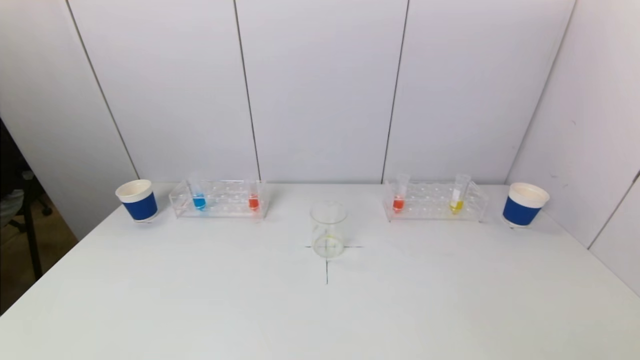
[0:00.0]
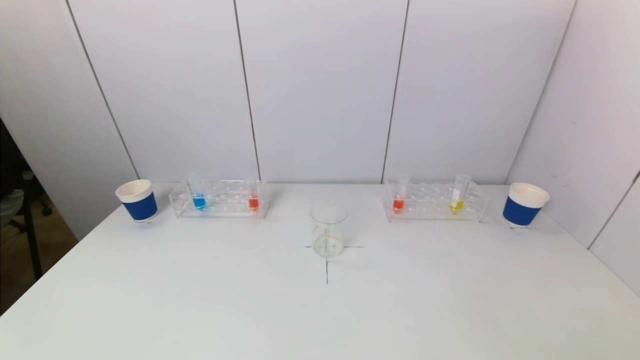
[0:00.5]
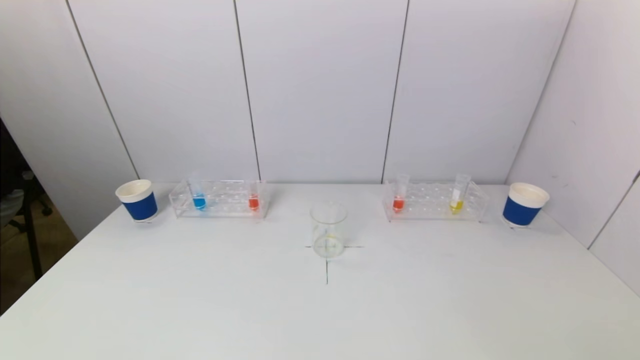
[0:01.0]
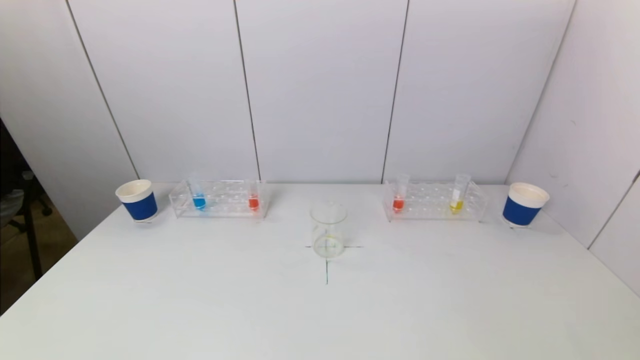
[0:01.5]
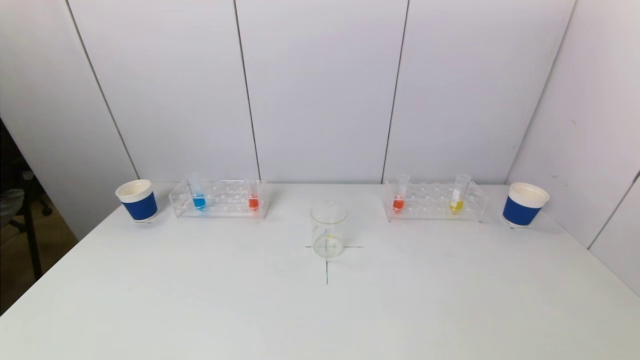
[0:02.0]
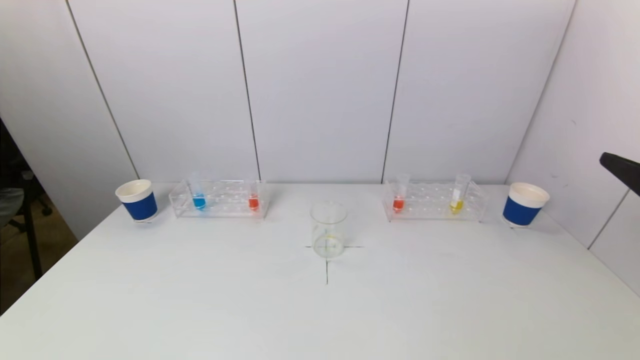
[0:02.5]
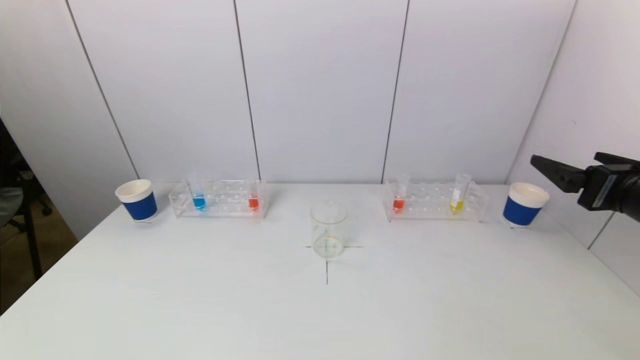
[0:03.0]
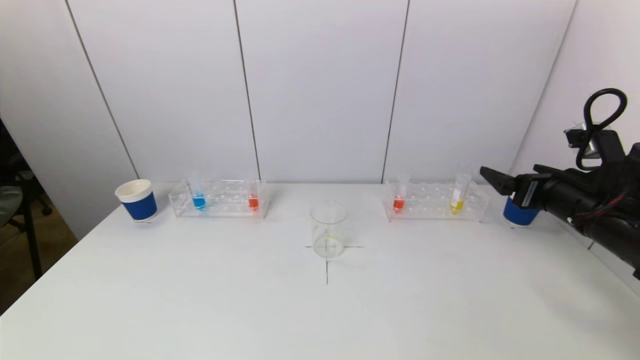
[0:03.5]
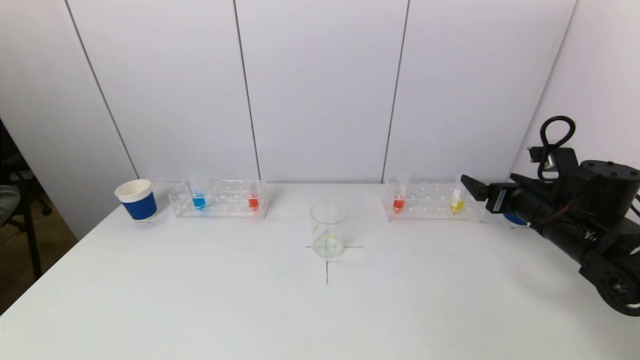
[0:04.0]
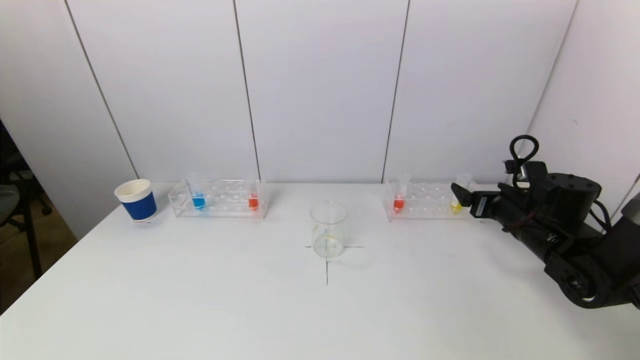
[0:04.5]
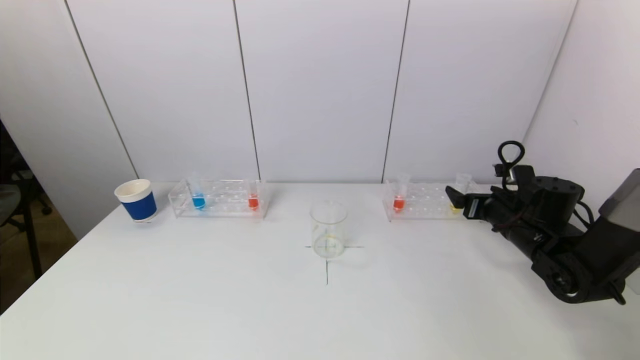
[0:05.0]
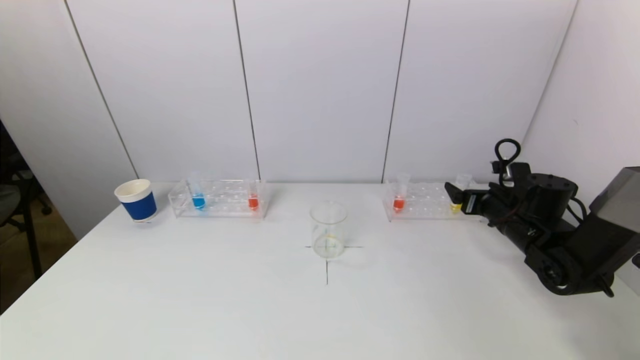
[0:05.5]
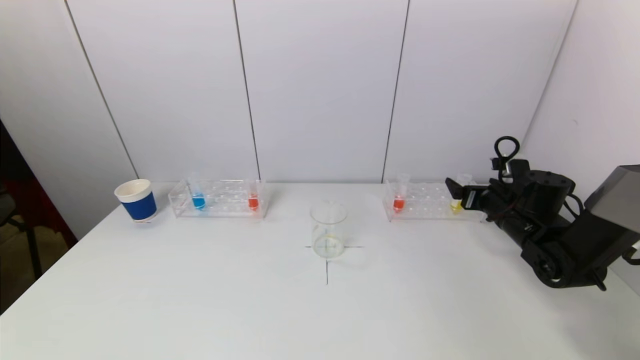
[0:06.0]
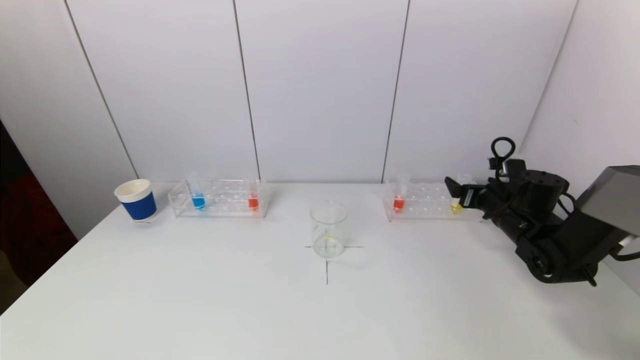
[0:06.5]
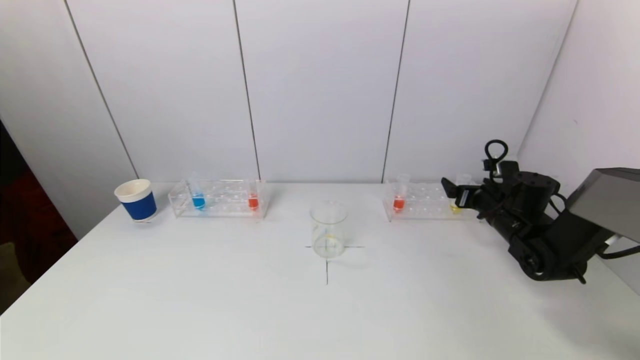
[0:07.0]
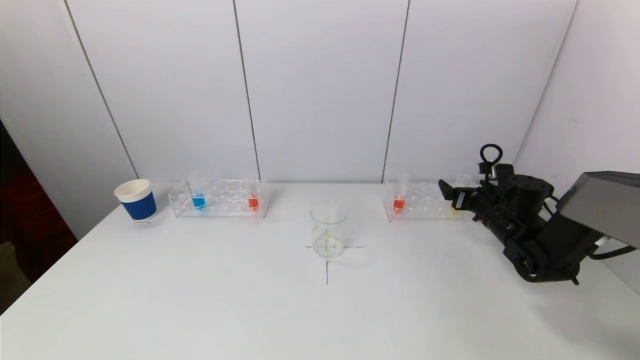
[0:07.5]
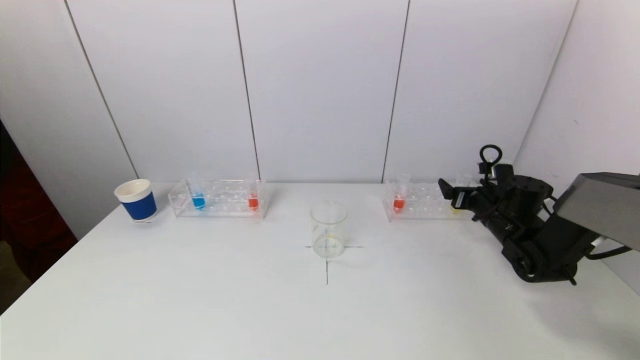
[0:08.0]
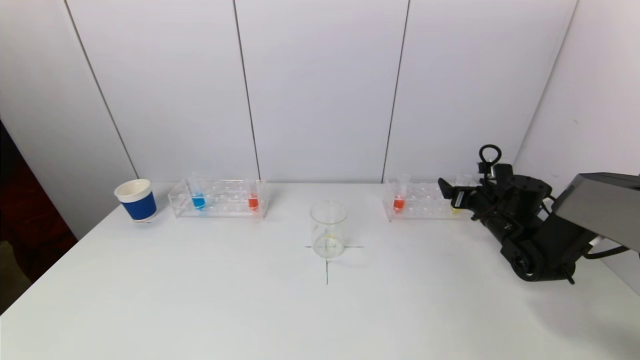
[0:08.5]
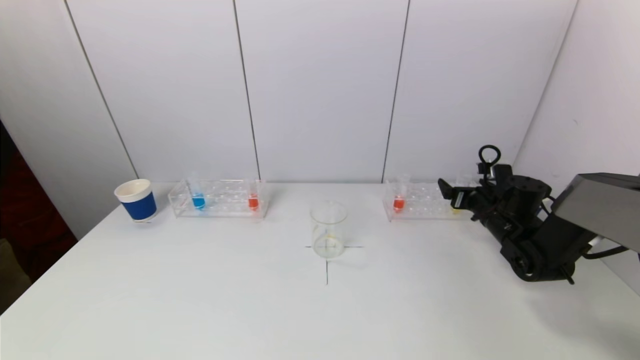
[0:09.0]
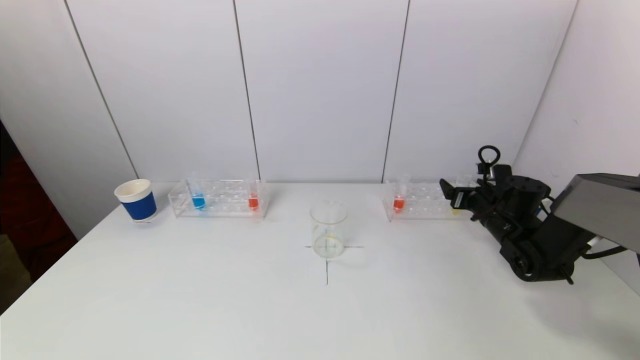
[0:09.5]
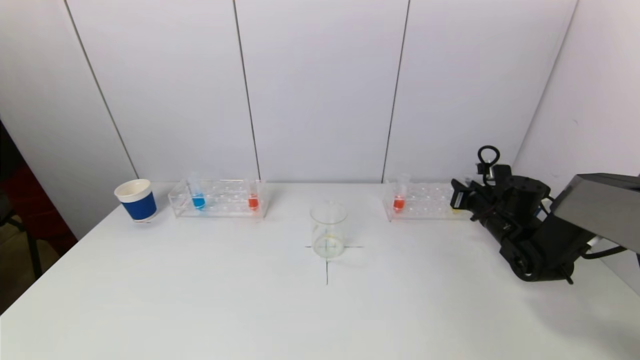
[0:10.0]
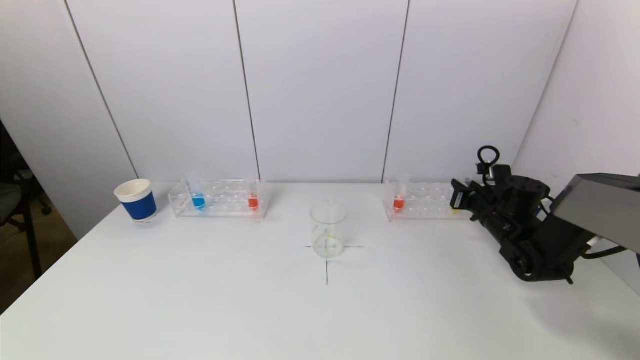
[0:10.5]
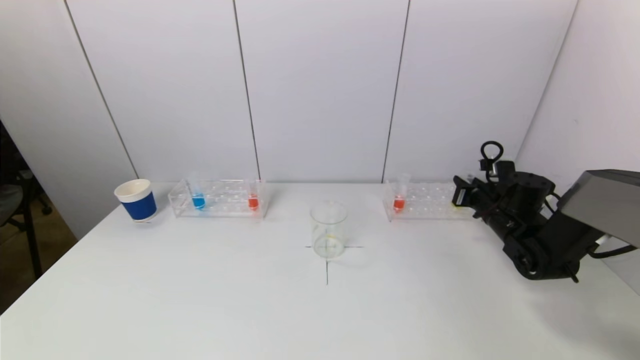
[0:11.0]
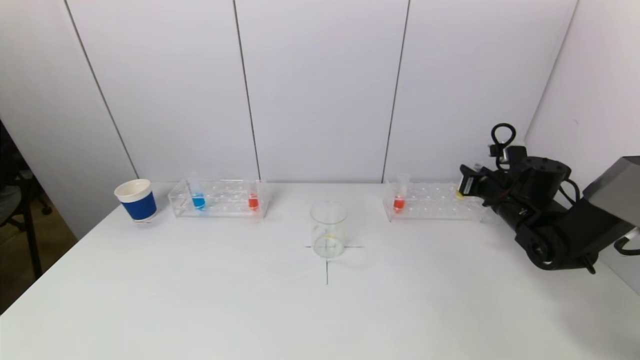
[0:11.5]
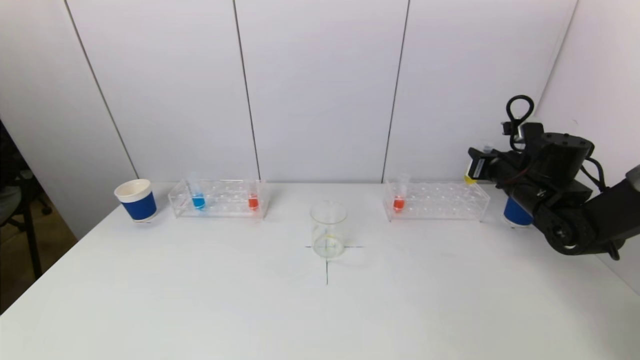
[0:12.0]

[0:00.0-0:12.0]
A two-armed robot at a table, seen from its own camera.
Task of the whole recording: pick up a test tube with pigment on left test tube rack and a test tube with pigment on right test tube rack by grippers and pour them into the beaker.
Step, 0:00.0 to 0:10.0: Grasp the yellow reagent with the right gripper.
0:02.0 to 0:04.0: The right gripper heads forward and downward, covering approximately 30 cm.
0:04.0 to 0:06.0: The right gripper heads forward and downward, covering roughly 10 cm.
0:06.0 to 0:08.0: The grippers make only small movements.
0:08.0 to 0:10.0: The right gripper closes its fingers.
0:10.0 to 0:12.0: The right gripper is displaced upward by some 10 cm.

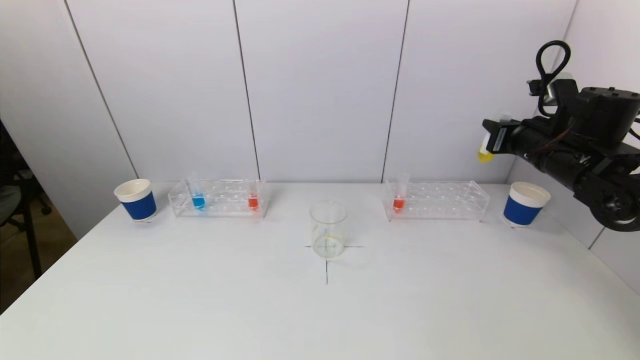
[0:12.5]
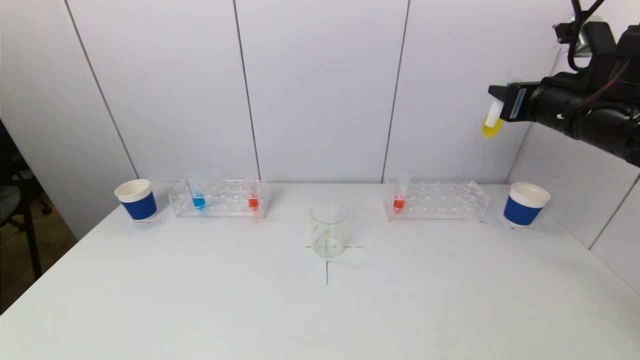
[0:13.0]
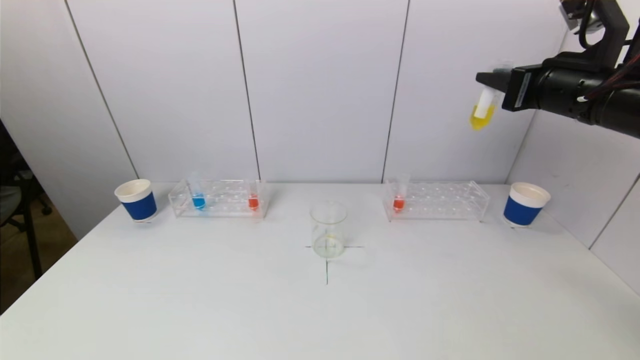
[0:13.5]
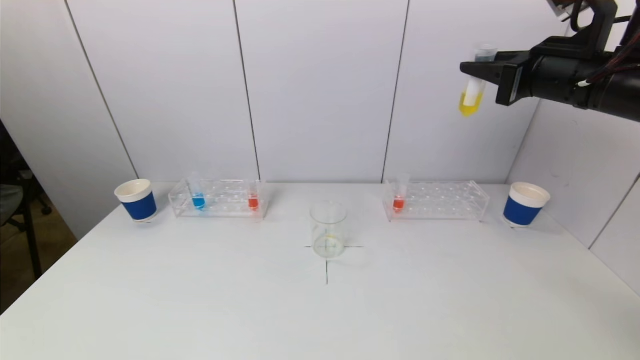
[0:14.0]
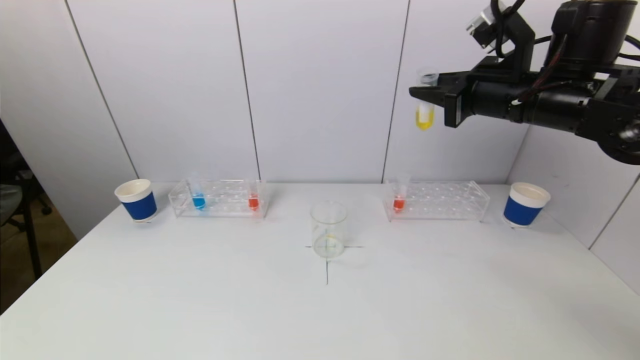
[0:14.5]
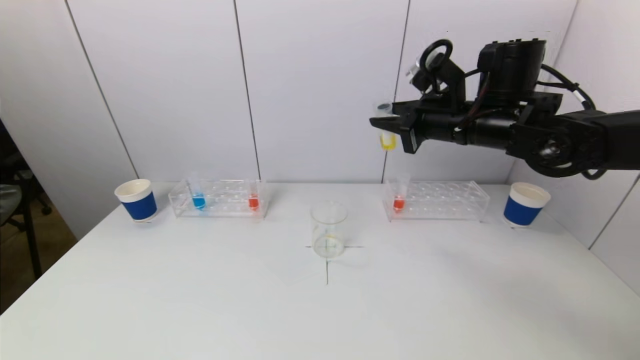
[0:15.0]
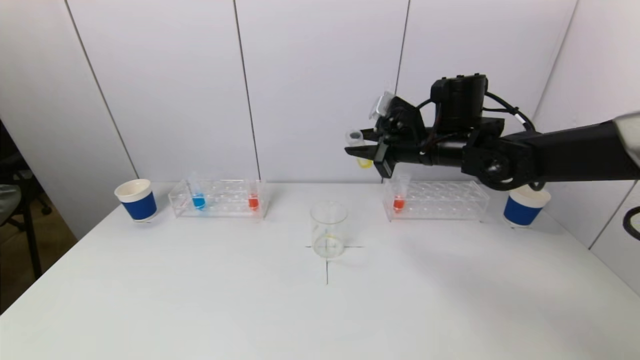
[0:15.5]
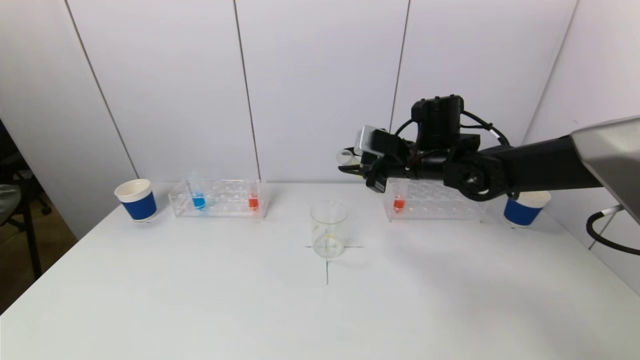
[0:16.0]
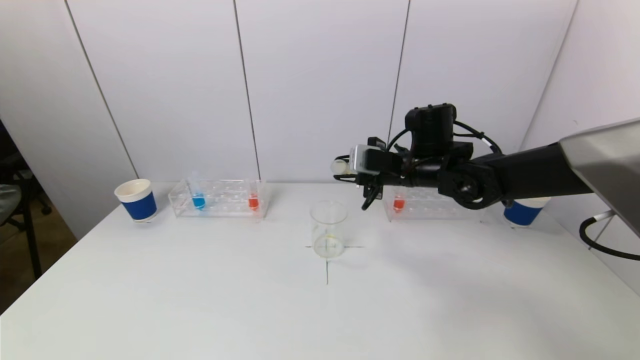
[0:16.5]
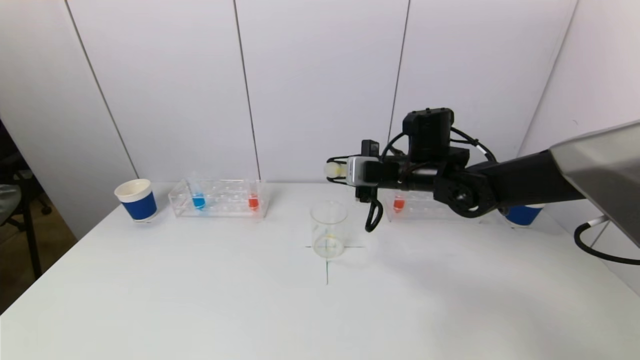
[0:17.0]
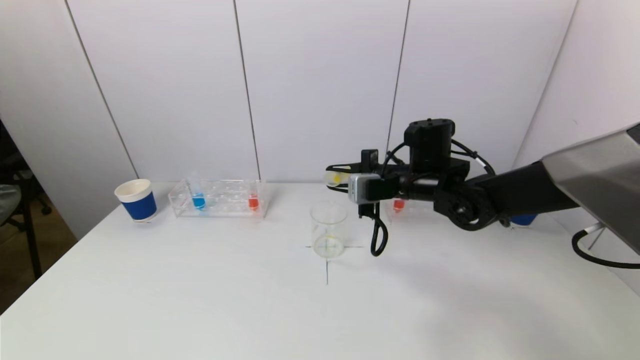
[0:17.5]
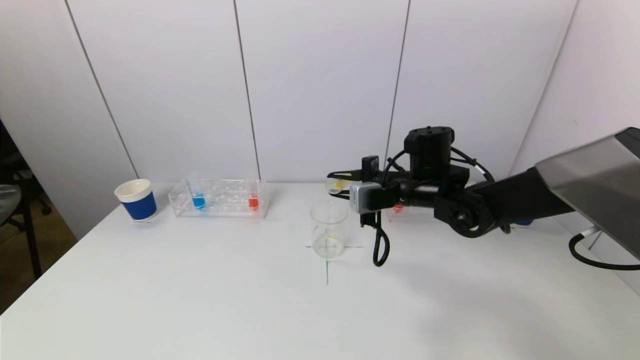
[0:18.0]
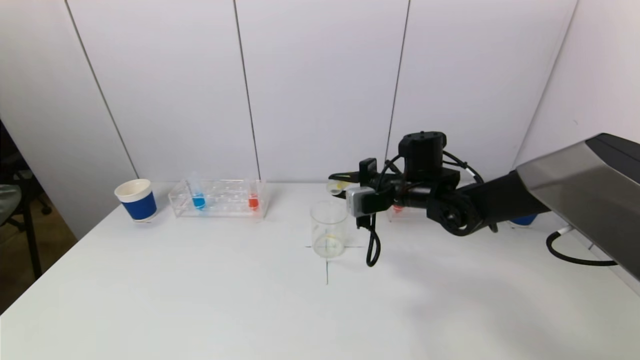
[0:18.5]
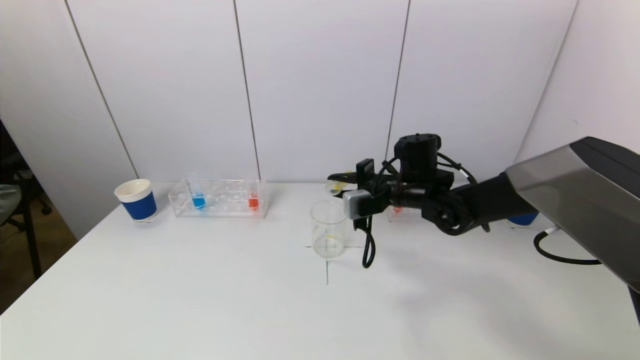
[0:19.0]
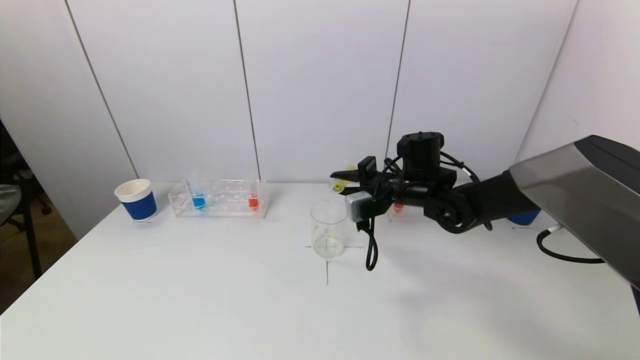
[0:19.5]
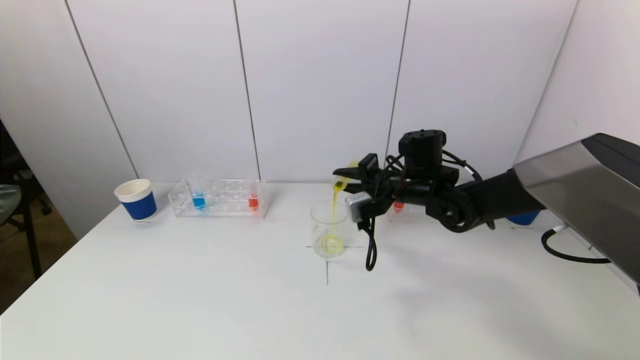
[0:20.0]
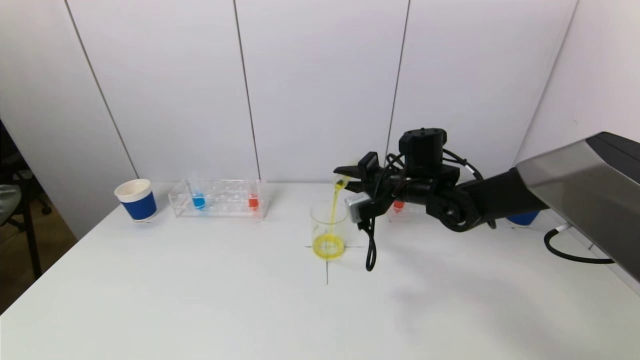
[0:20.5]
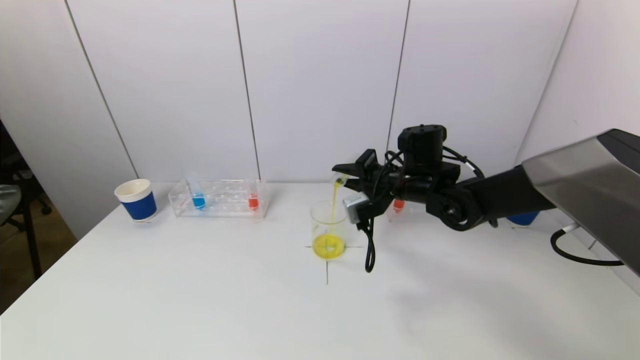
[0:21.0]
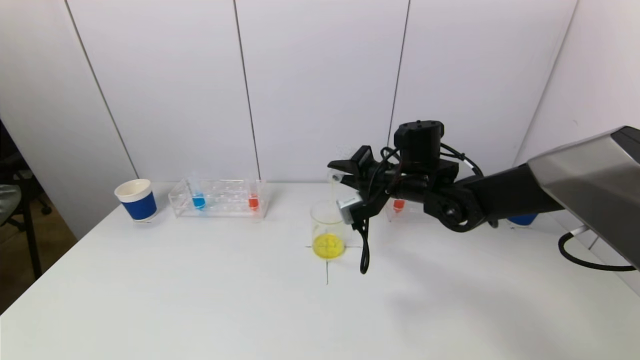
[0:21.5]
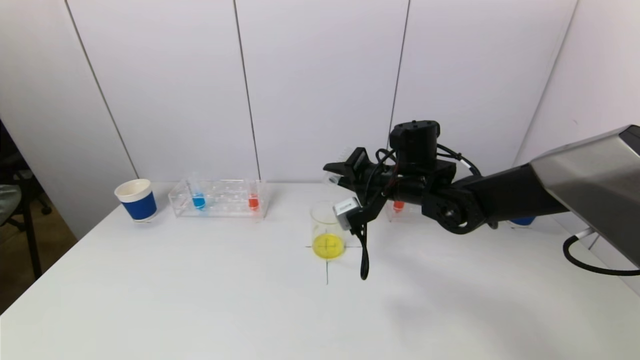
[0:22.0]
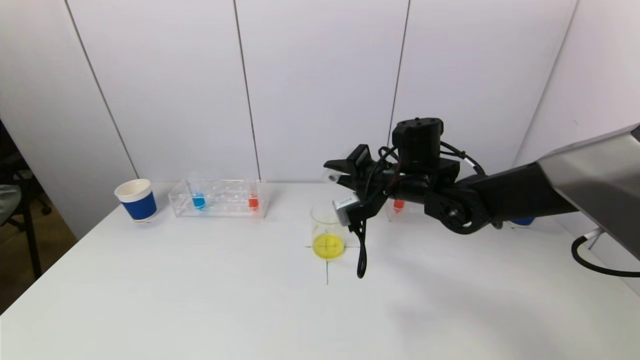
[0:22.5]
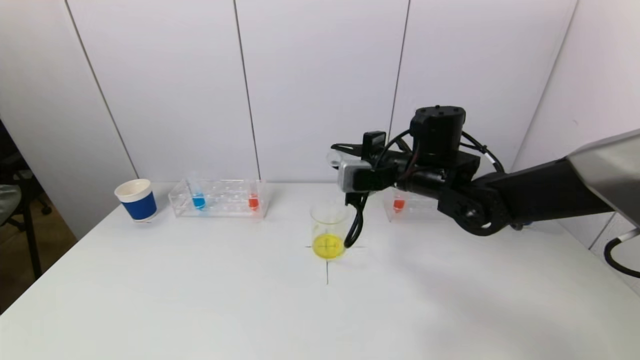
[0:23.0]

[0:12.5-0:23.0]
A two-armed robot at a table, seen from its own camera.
Task of the whole recording: pick up a test tube with pigment on left test tube rack and a test tube with pigment on right test tube rack by grippers and pour them into the beaker.
Step, 0:12.5 to 0:21.5: Pour the yellow reagent into the graduated cylinder with the right gripper.
0:12.5 to 0:14.5: The right gripper shifts some 10 cm to the left and upward.
0:14.5 to 0:16.5: The right gripper travels downward, to the left and forward by some 15 cm.
0:16.5 to 0:19.0: The right gripper moves downward, roughly 5 cm.
0:19.0 to 0:21.0: The grippers stay close to where they were, moving slightly.
0:21.0 to 0:23.0: The right gripper ends up some 5 cm from where it was.
